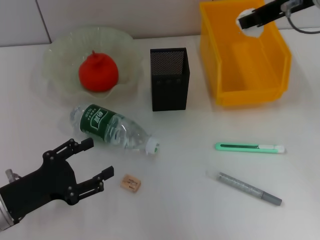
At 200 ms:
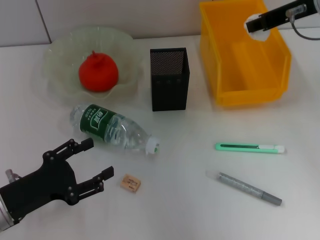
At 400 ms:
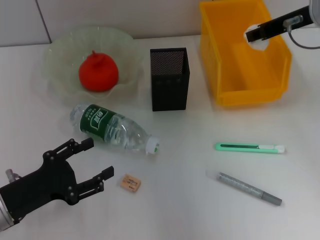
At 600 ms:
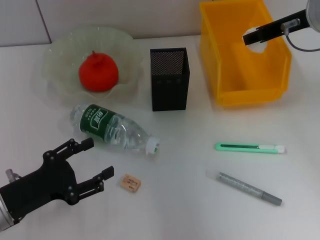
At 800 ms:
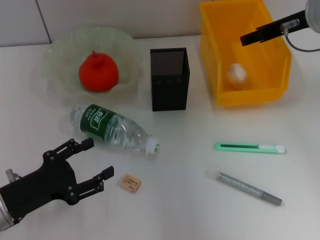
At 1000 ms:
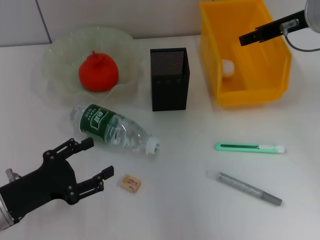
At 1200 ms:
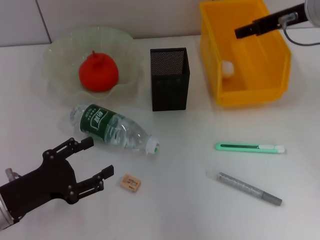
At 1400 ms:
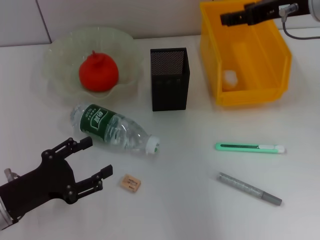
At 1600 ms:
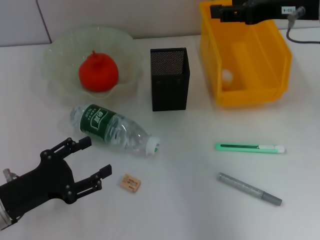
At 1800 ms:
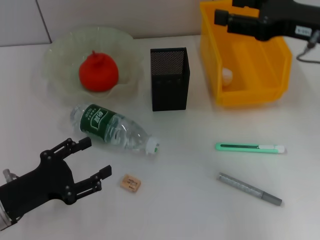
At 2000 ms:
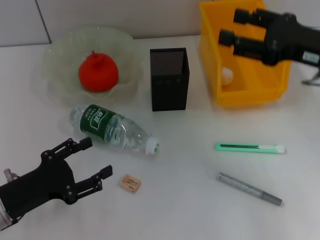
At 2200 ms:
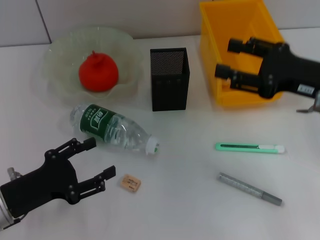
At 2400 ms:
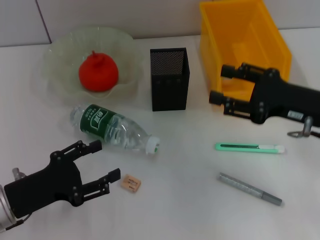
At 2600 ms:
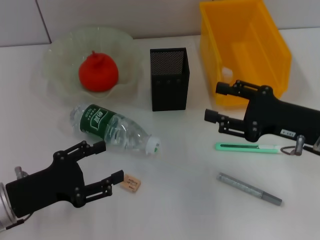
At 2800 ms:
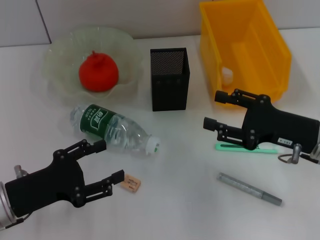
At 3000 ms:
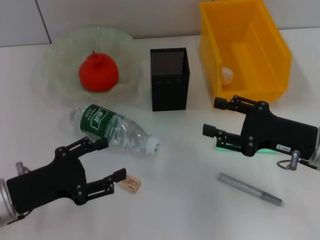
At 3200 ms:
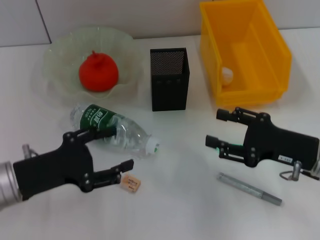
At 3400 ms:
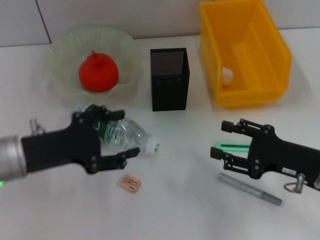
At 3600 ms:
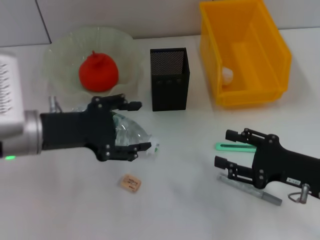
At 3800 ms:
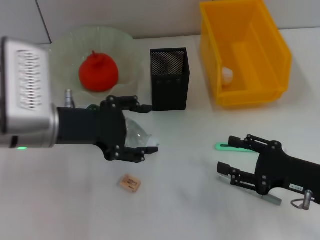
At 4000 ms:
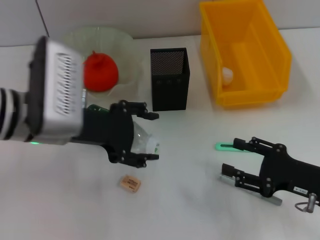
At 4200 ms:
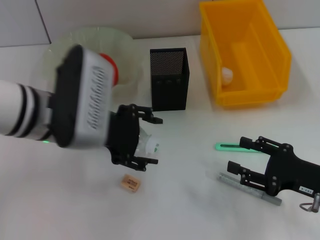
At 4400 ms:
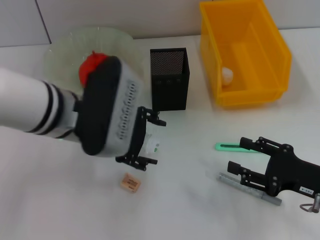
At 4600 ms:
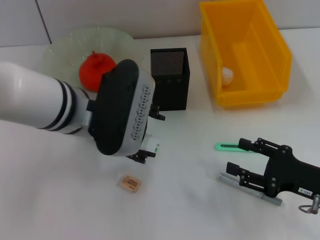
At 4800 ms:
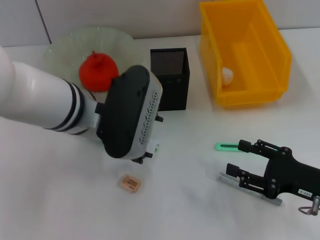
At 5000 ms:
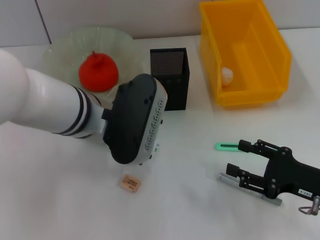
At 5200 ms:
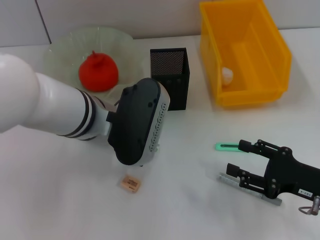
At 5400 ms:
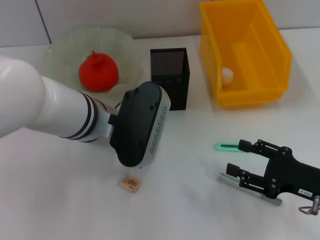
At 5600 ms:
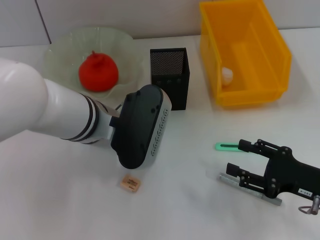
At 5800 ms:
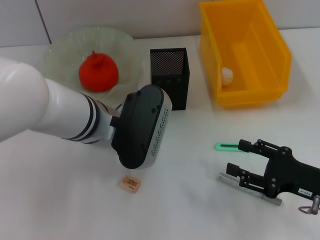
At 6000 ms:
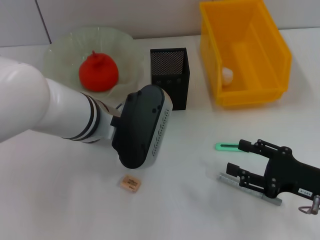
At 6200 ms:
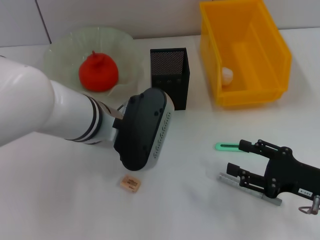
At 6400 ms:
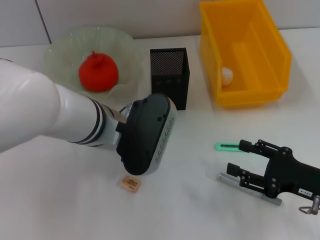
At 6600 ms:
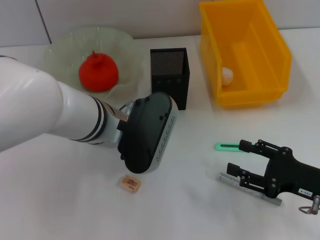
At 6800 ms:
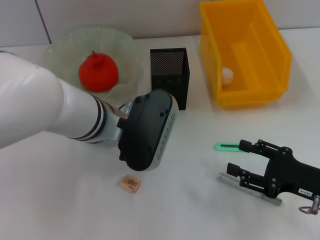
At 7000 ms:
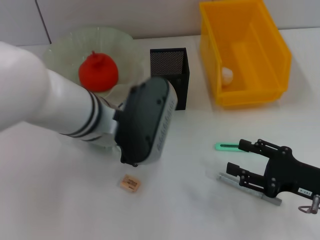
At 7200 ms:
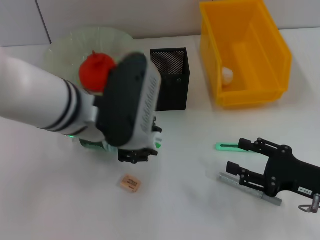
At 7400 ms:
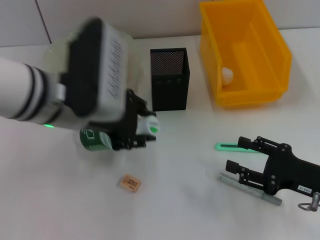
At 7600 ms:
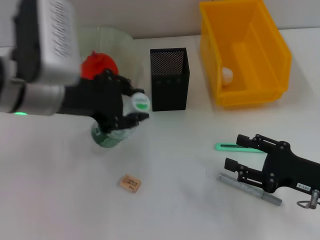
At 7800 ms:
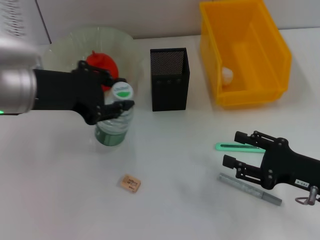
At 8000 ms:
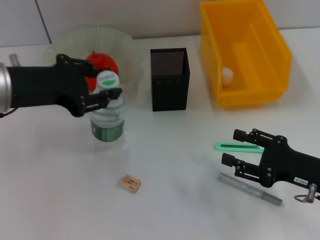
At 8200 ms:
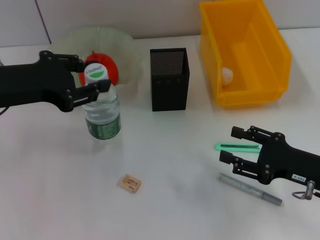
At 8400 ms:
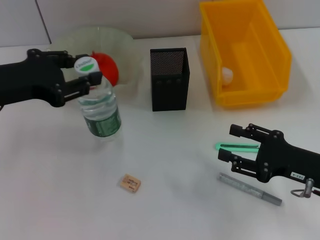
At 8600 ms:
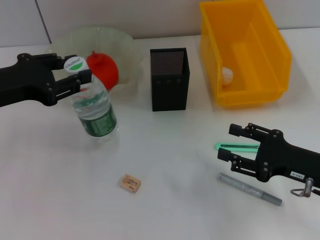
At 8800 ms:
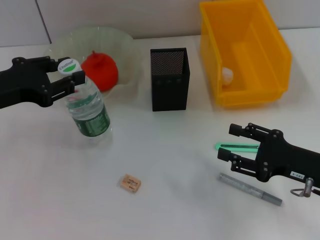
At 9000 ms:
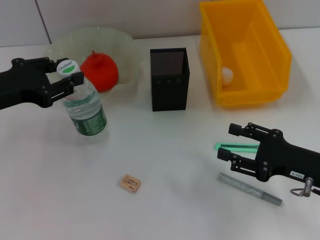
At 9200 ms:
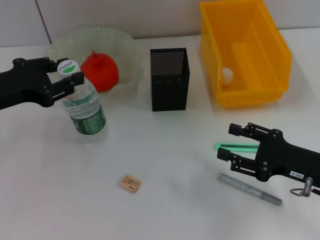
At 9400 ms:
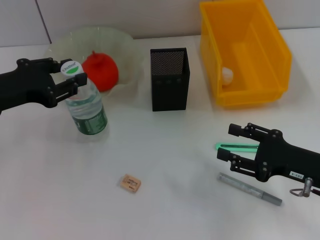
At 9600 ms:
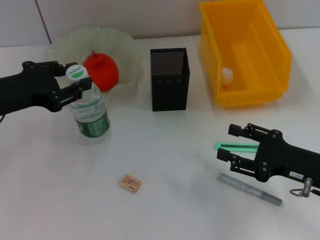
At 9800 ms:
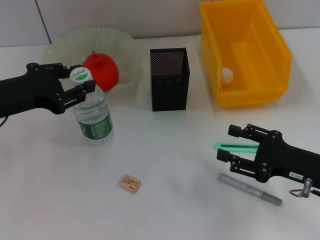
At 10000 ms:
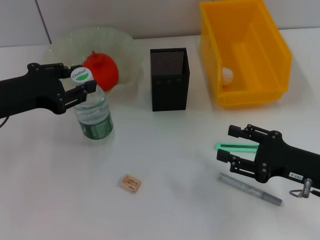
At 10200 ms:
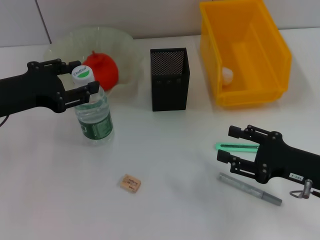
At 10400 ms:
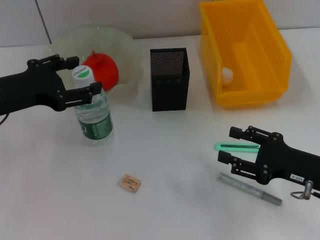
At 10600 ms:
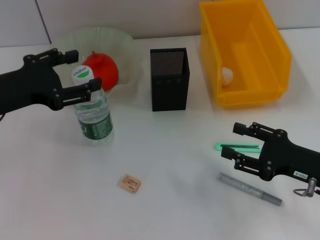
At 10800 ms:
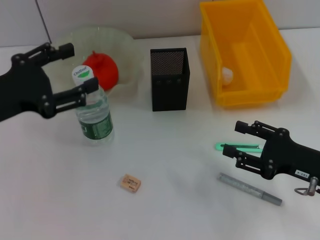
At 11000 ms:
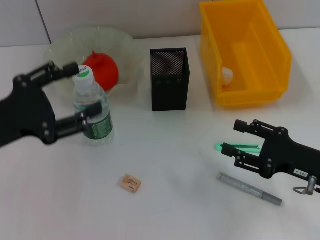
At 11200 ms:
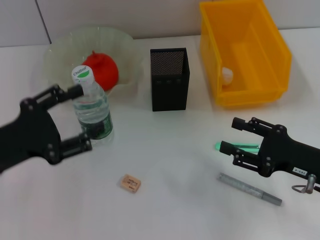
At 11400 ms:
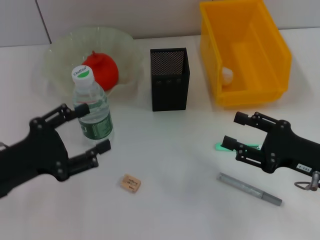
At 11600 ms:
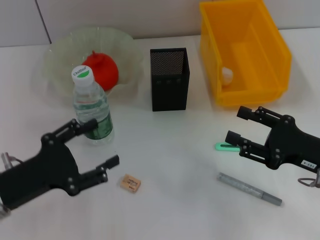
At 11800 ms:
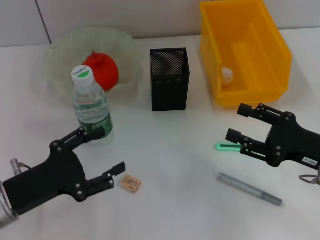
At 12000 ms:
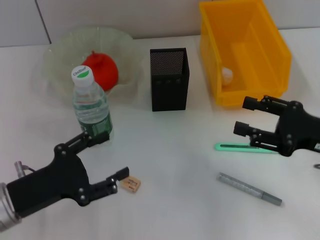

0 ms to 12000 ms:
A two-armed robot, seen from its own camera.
Step, 1200 ms to 6400 ms: Grab the water bottle with the left hand.
Step, 6600 ms to 10400 ms: Place the water bottle on the table with the left hand.
0 ms to 1600 ms: The right gripper opens up.
1600 ms to 3000 ms: The right gripper moves downward and backward, some 20 cm.
3000 ms to 4400 ms: The left gripper shifts roughly 20 cm to the right, upward and forward, while the right gripper is displaced backward by about 5 cm.
4400 ms to 6000 ms: The grippers move only a little.
6000 ms to 7600 ms: The left gripper shifts roughly 10 cm to the left and upward.
7600 ms to 9000 ms: The left gripper moves to the left, about 10 cm.
9000 ms to 10400 ms: There are only small adjustments of the grippers.
10400 ms to 12000 ms: The left gripper shifts approximately 15 cm downward and backward; the right gripper heads upward, covering approximately 5 cm.

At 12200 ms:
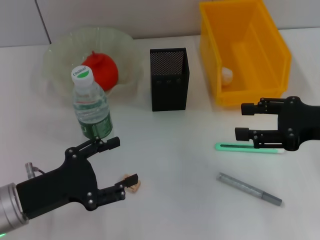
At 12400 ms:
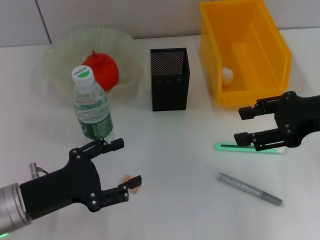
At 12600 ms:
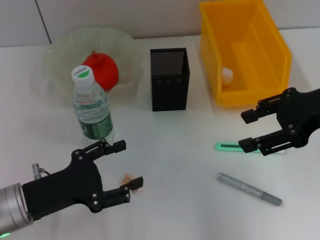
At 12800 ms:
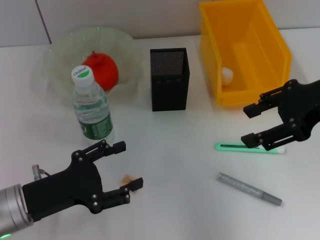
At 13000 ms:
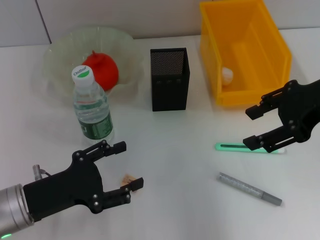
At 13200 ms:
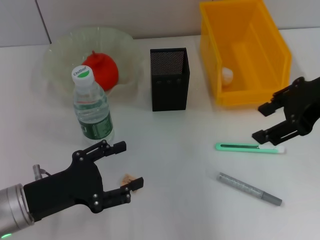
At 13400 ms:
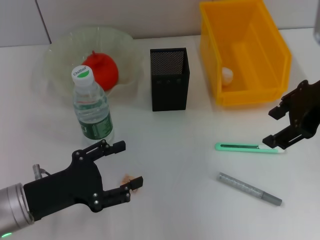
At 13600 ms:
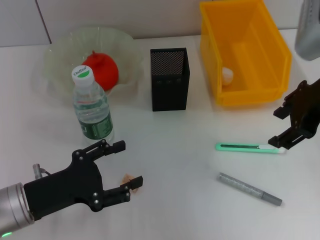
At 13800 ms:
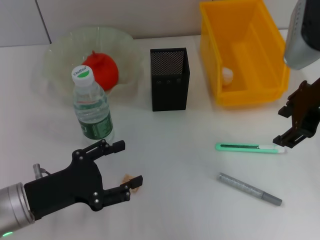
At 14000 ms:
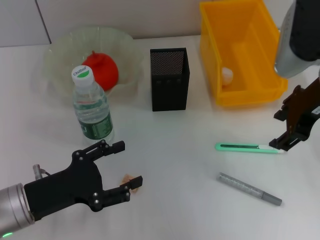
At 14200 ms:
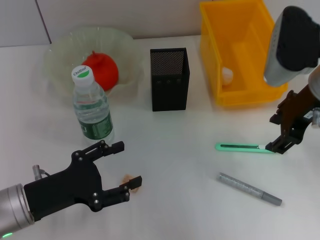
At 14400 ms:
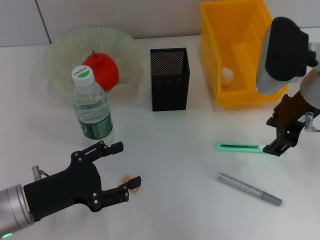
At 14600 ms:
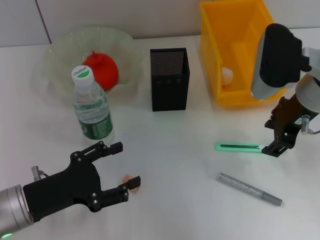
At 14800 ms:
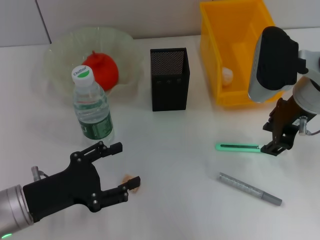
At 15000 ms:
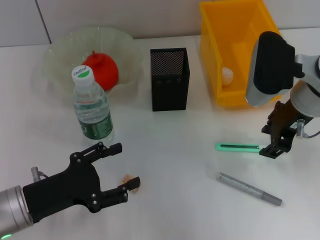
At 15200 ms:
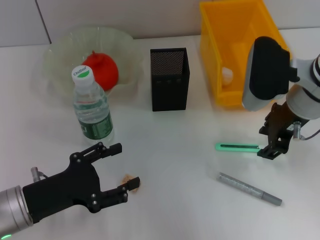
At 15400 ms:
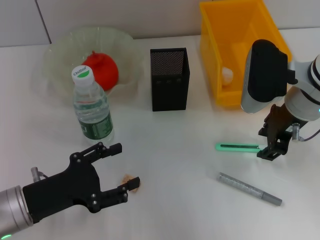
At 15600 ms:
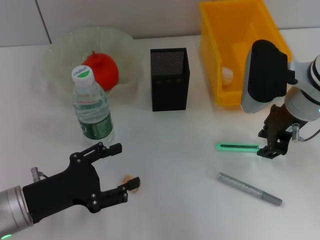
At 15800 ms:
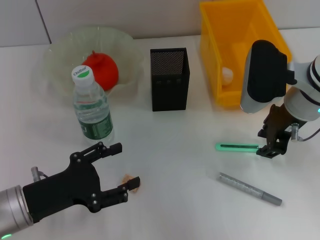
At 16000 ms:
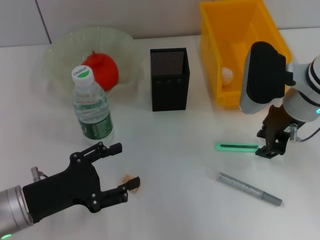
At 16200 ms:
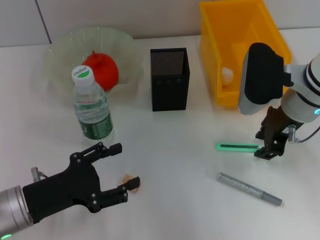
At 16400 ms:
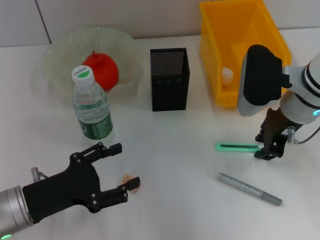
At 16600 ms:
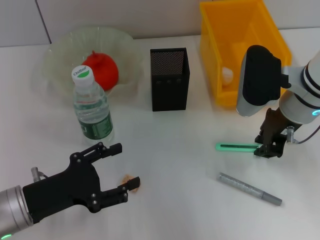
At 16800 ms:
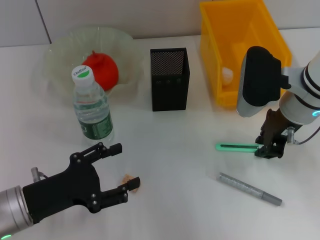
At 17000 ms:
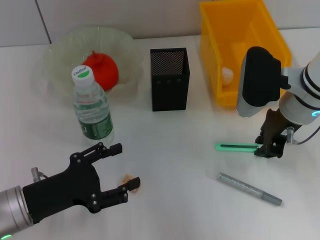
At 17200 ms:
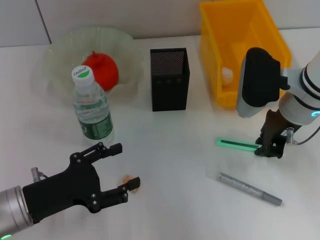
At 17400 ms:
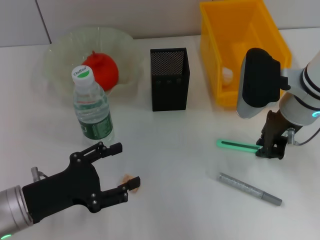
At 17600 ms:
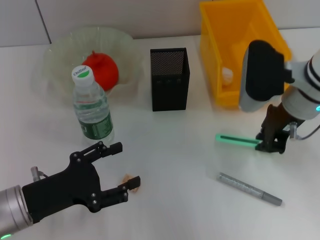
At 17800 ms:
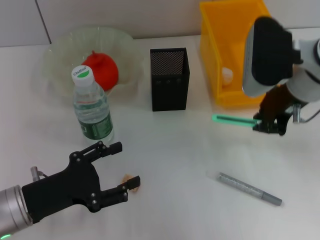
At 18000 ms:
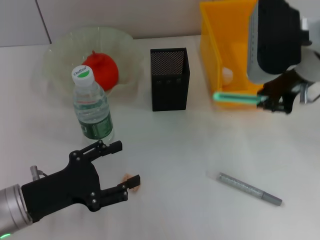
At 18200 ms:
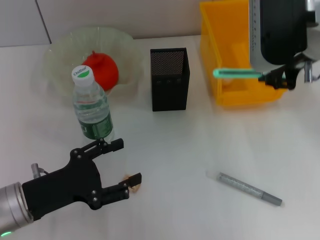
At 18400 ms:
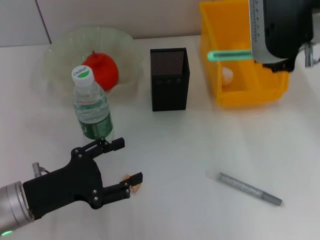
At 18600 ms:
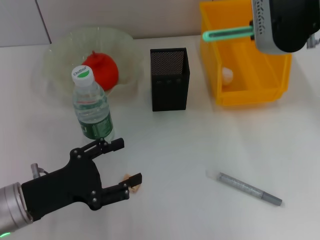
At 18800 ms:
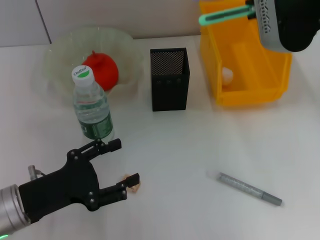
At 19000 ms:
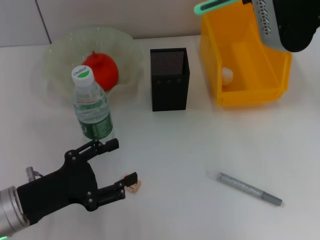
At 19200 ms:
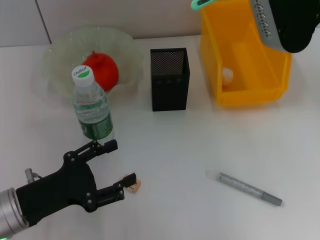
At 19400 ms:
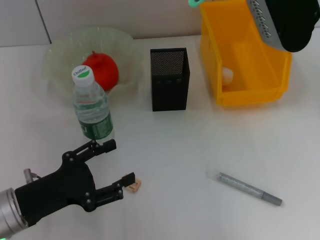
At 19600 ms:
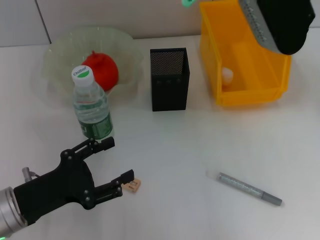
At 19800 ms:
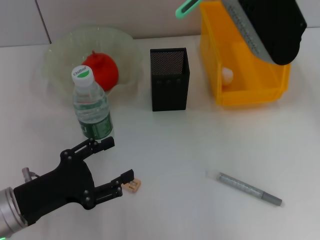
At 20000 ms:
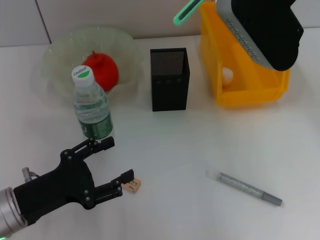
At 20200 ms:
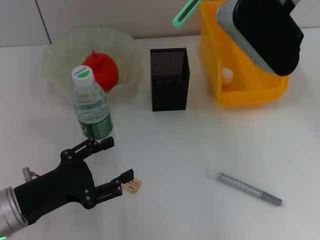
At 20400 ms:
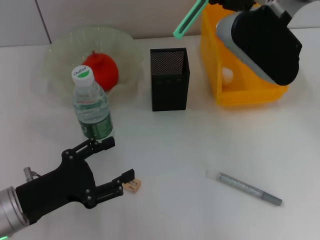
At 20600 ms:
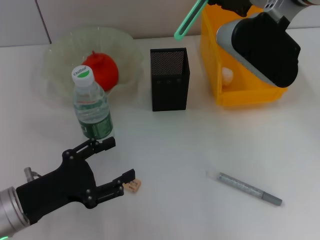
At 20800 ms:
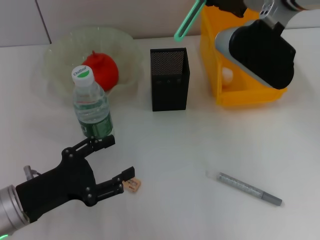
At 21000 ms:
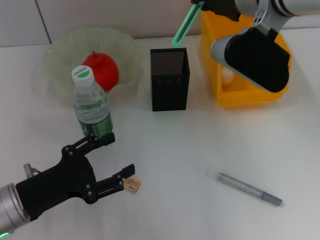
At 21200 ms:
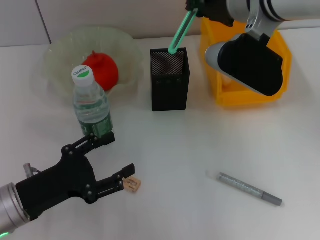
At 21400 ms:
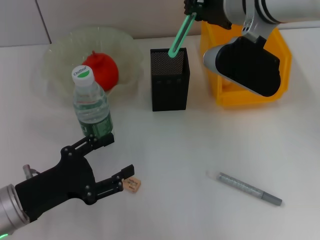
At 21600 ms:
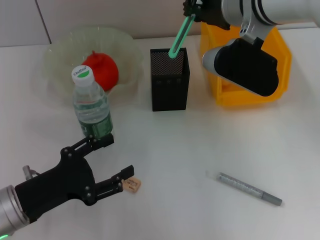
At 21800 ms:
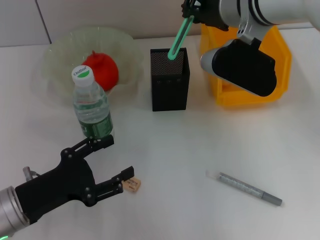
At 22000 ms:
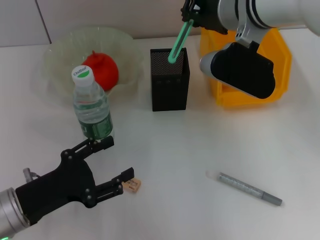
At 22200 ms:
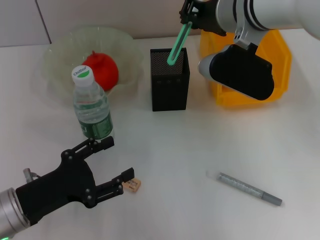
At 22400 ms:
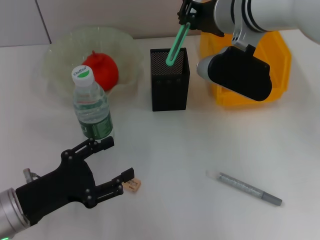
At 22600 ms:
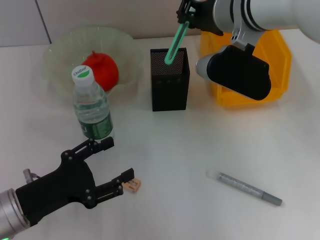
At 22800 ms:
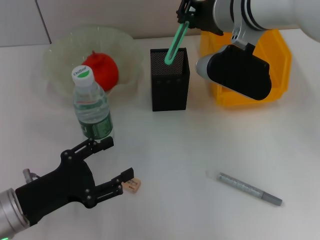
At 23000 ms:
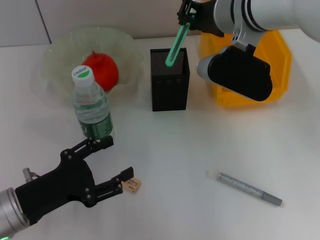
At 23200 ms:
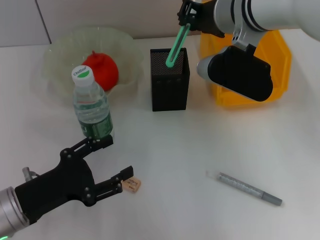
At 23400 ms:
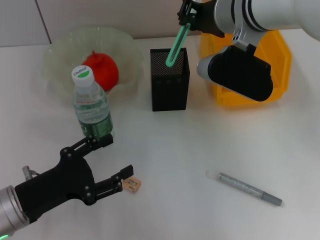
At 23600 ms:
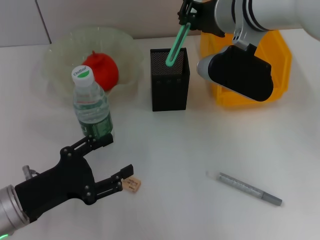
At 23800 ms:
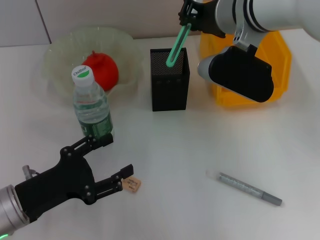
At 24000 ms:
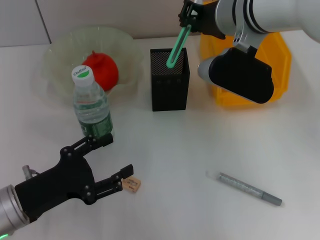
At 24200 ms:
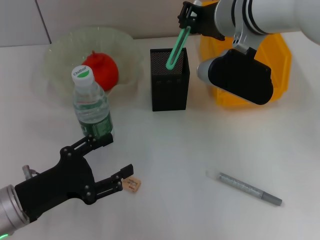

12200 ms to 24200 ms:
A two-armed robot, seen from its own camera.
Step, 12200 ms to 17000 ms: Grab the blue utility knife with the right hand.
12200 ms to 13800 ms: The right gripper goes approximately 10 cm upward, to the left and forward.
13800 ms to 15200 ms: The right gripper is displaced downward by approximately 5 cm.
15200 ms to 16600 ms: The right gripper closes.
16600 ms to 18200 ms: The right gripper goes about 10 cm upward.
18200 ms to 19800 ms: The right gripper shifts by some 5 cm.
19800 ms to 21200 ms: The right gripper shifts some 5 cm downward.
21200 ms to 22600 ms: The grippers move only a little.
22600 ms to 24200 ms: The two grippers keep their place.
